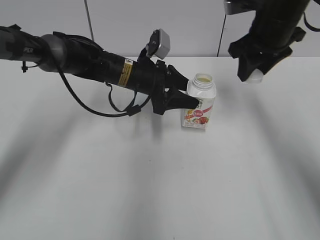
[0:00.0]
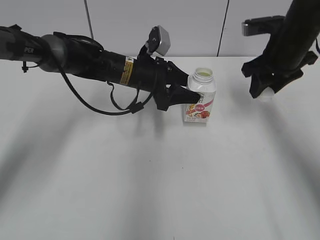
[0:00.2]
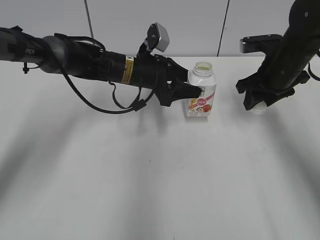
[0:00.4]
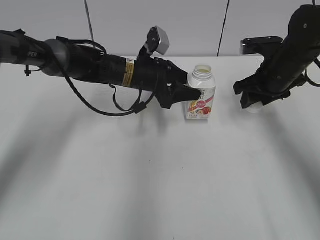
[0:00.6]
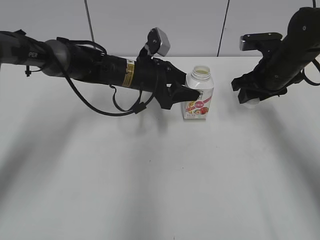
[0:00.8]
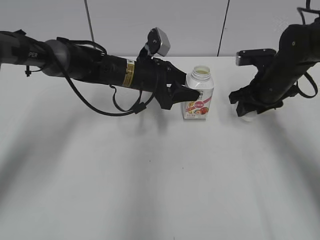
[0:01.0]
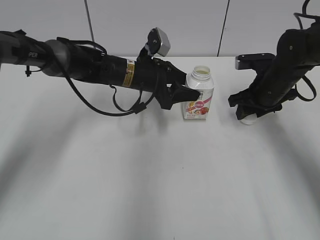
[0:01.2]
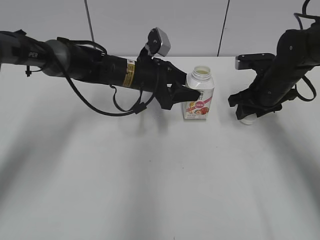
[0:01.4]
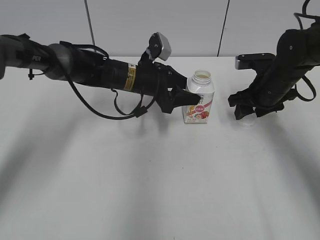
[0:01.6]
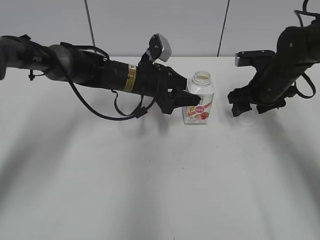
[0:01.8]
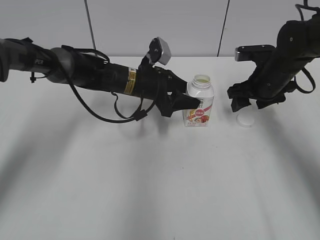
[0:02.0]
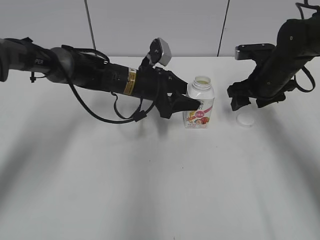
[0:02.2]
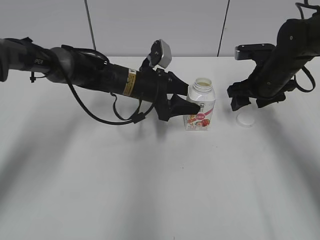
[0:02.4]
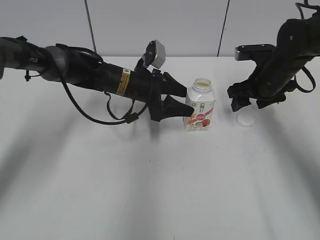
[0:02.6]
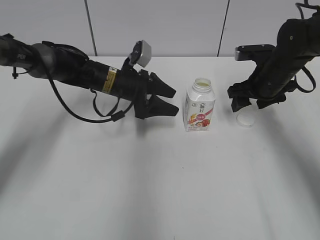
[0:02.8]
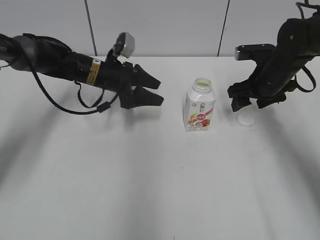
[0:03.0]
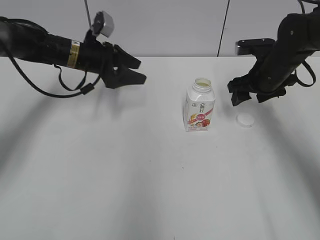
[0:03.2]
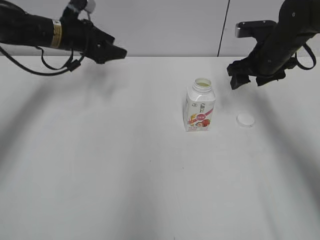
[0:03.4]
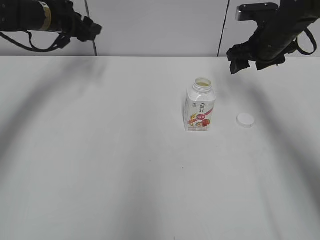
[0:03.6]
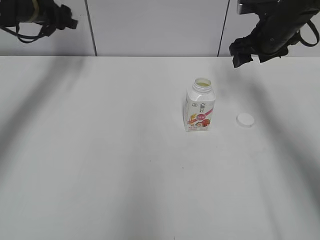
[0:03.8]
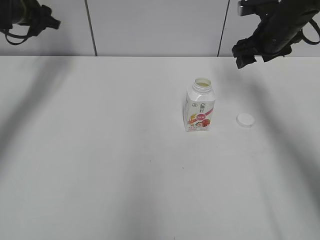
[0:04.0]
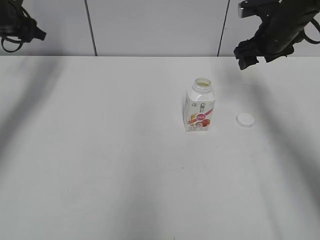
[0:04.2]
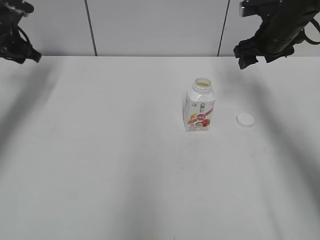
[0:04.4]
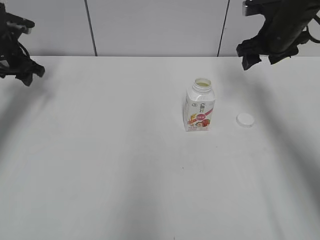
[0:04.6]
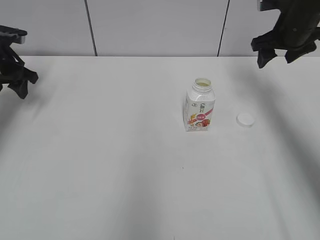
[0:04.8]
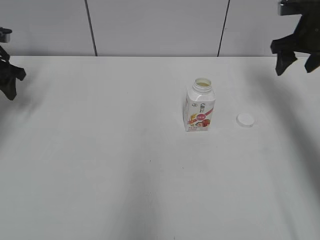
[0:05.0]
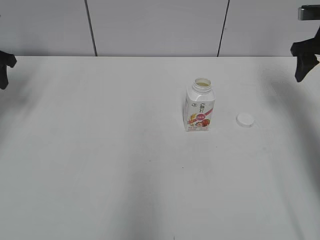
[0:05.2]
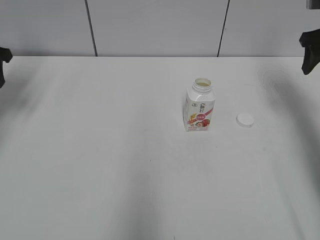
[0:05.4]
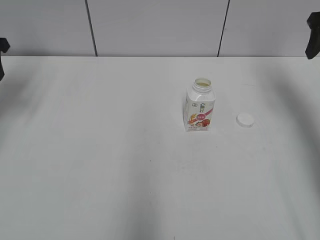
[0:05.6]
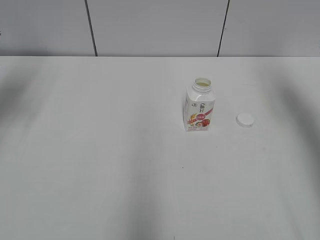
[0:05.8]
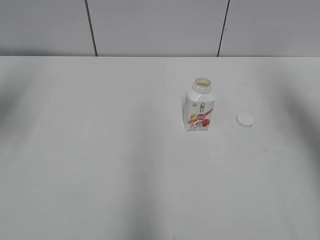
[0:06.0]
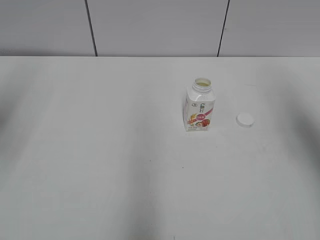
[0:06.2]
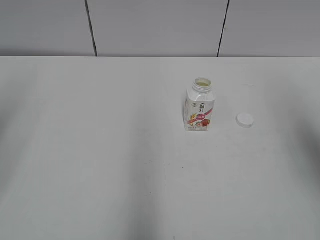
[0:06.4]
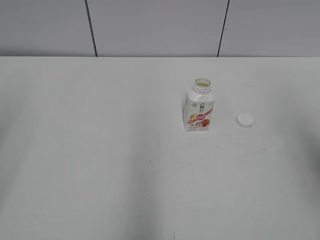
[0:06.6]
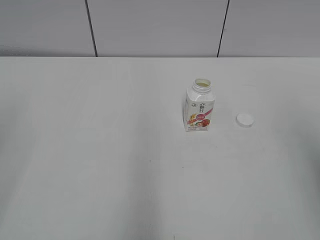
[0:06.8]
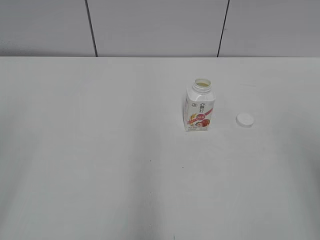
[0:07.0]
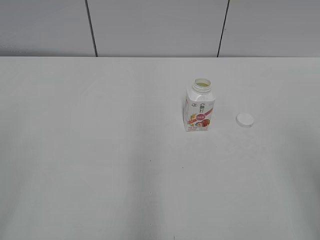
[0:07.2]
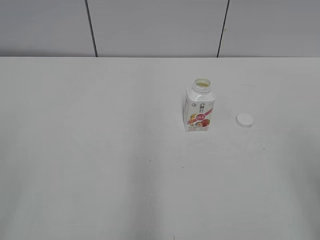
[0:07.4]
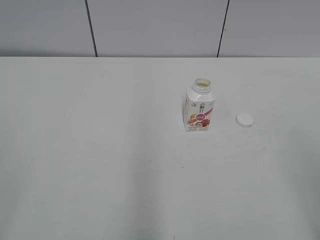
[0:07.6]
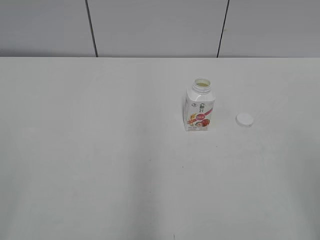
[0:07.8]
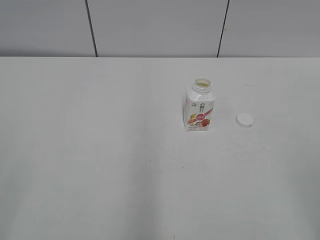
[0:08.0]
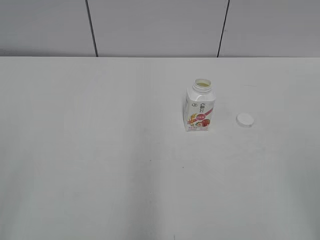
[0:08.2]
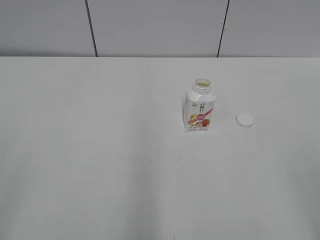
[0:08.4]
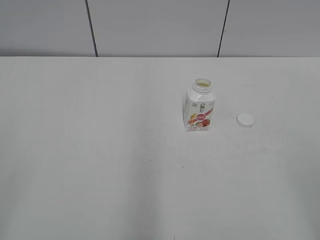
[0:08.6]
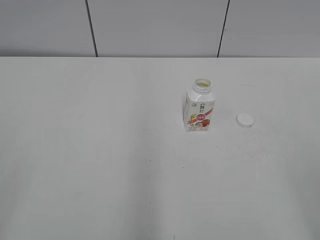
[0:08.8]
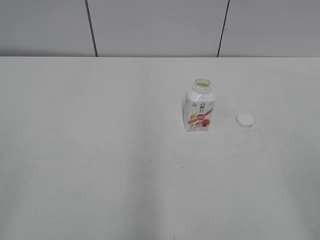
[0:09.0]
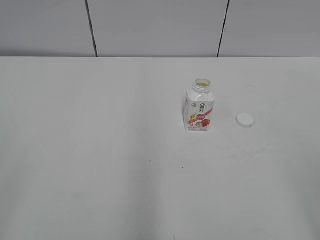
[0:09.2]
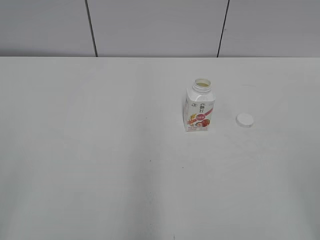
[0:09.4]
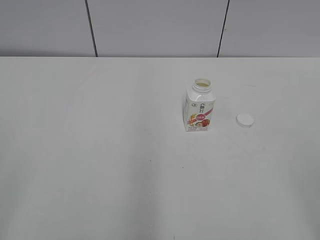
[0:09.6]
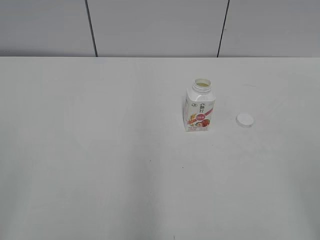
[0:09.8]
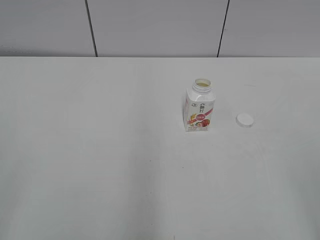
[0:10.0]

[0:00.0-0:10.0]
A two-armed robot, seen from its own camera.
Step, 0:00.0 to 0:01.8: Place the bottle cap on the right.
Step, 0:02.0 to 0:02.4: Place the Yili Changqing with the left hand.
0:00.0 to 0:01.4: The right gripper goes approximately 15 cm downward.
0:01.4 to 0:02.8: The right gripper opens its fingers.
0:02.8 to 0:04.2: The right gripper is displaced upward by approximately 5 cm. The left gripper heads to the left and upward, covering approximately 25 cm.
0:04.2 to 0:05.8: The left gripper travels backward and upward by about 15 cm. The right gripper goes approximately 15 cm upward, backward and to the right.
0:05.8 to 0:07.2: The two grippers go about 30 cm backward.
